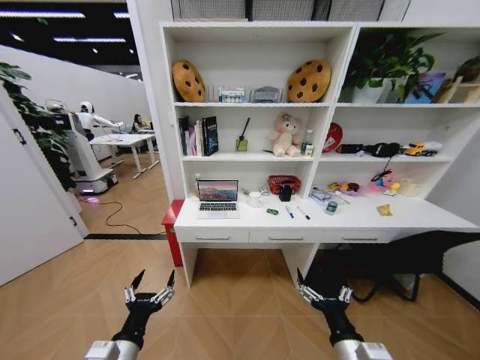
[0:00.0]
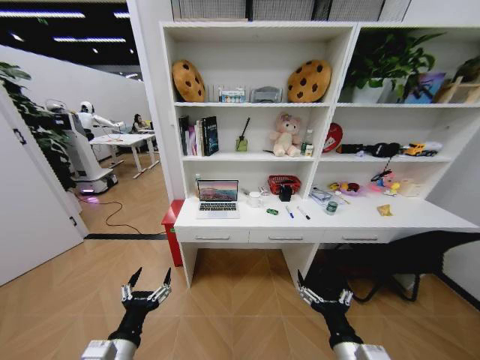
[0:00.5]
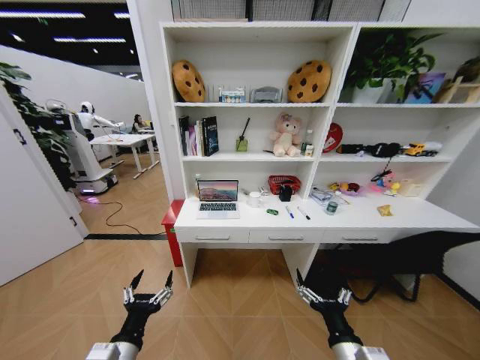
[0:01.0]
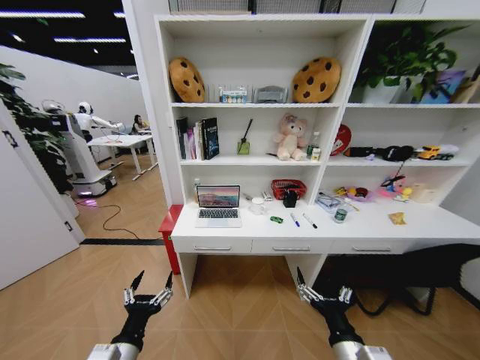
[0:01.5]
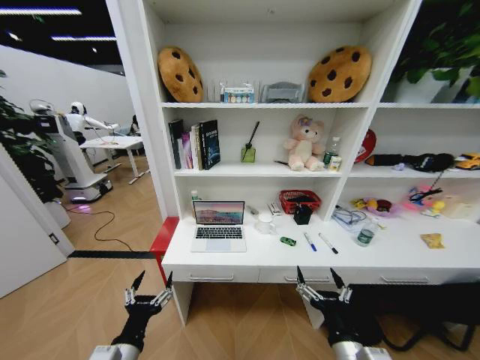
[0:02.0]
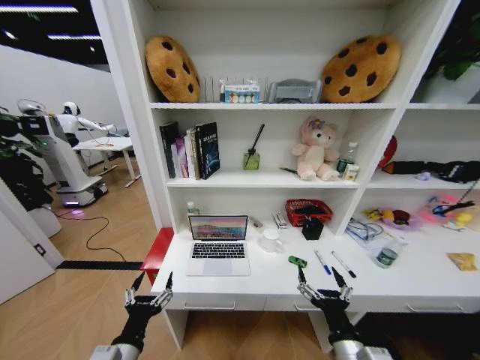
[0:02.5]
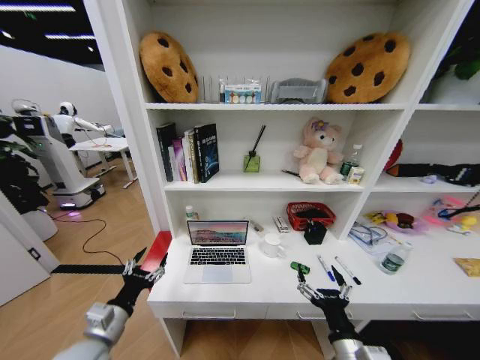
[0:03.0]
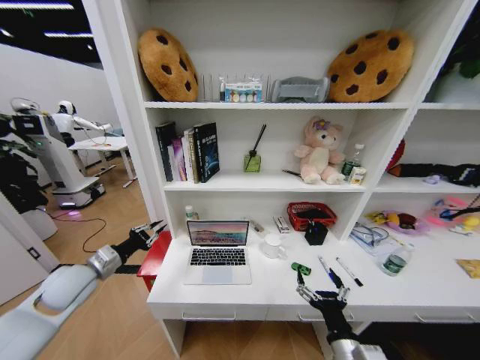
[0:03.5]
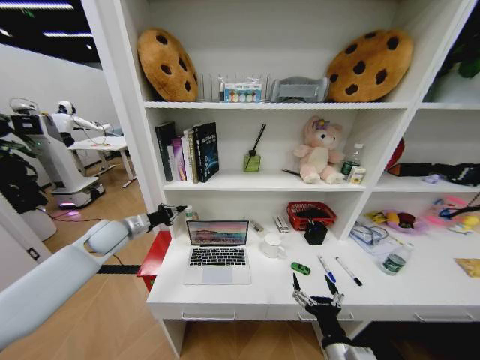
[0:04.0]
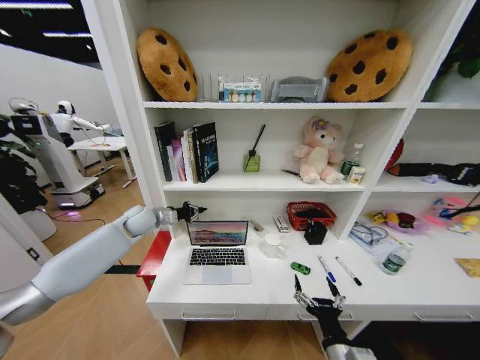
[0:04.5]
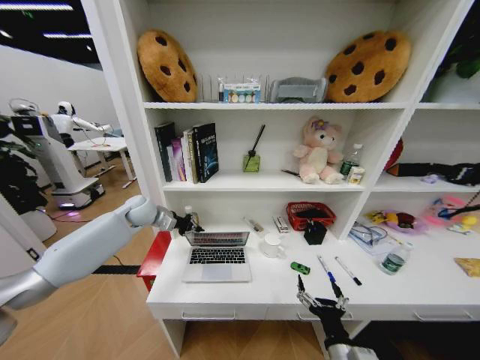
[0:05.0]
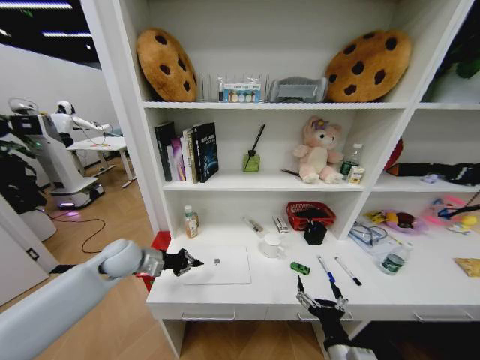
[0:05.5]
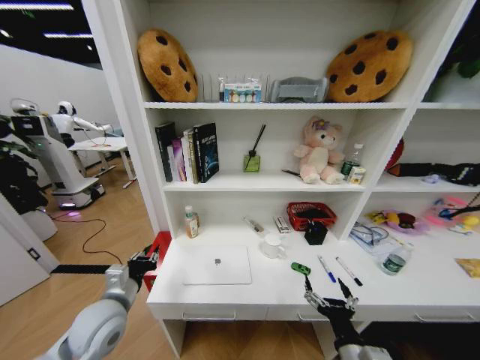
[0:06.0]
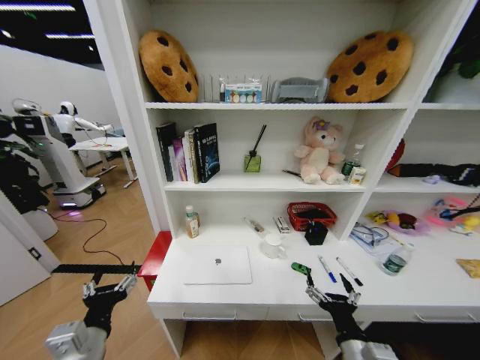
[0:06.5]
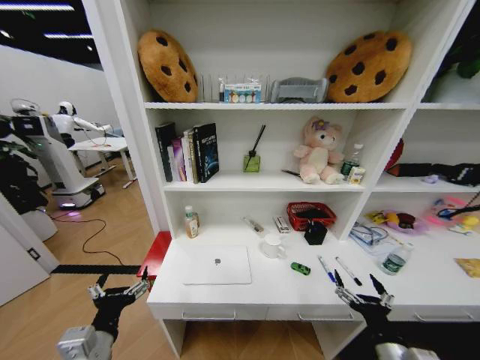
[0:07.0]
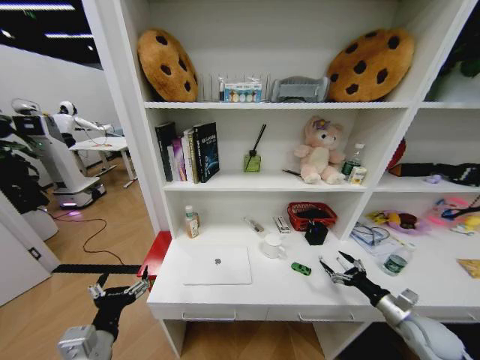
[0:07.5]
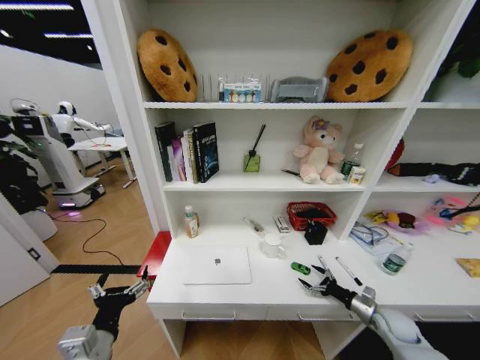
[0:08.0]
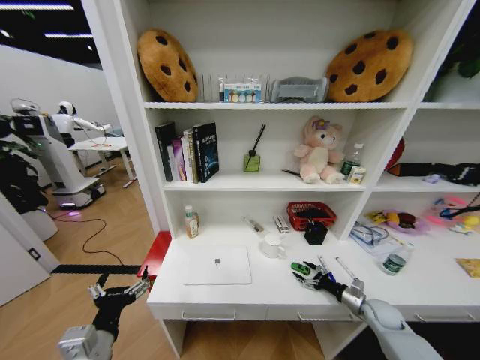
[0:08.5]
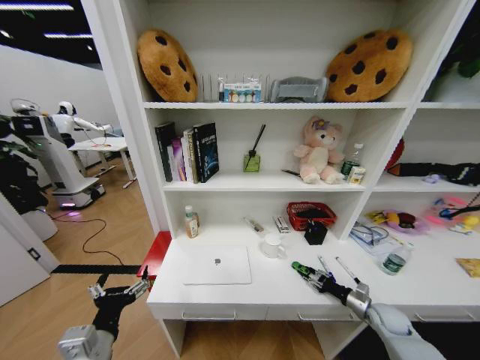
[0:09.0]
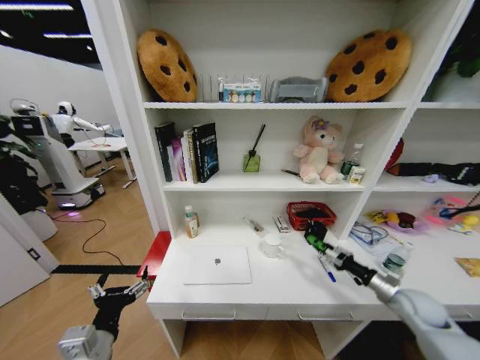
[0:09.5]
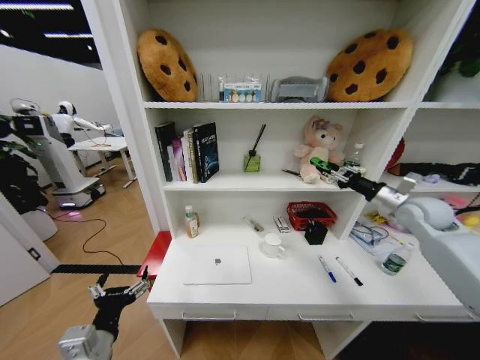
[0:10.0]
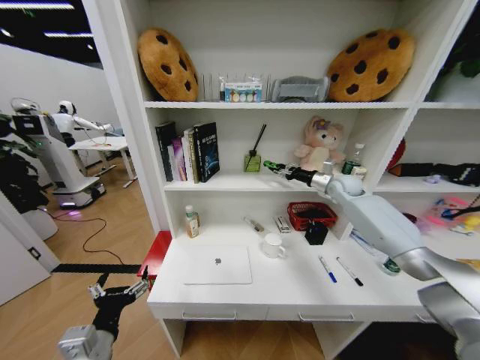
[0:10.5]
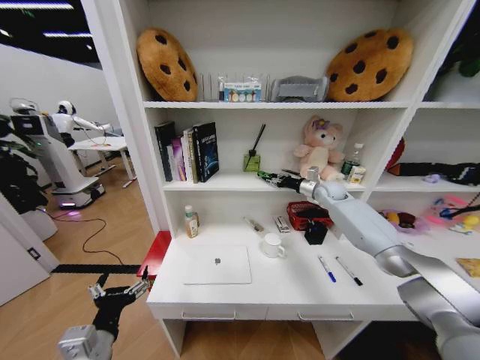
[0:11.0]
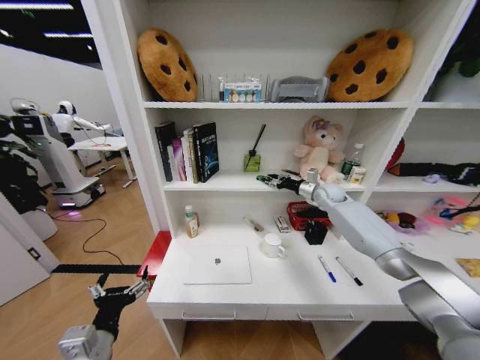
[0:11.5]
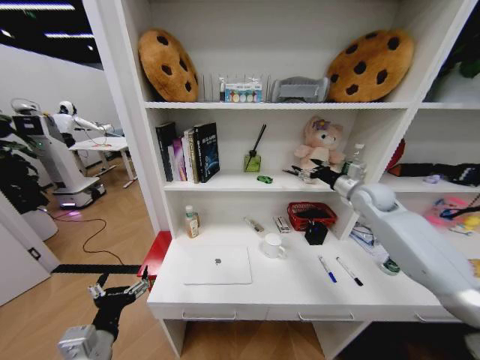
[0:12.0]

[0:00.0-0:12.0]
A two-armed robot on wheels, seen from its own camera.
Task of the whole recording: Organize the objects on the table.
0:02.0 to 0:04.0: The left gripper travels forward by some 35 cm, and closes up.
0:04.0 to 0:06.0: The left gripper shifts about 20 cm backward.
0:06.0 to 0:08.0: The left gripper is displaced backward by about 15 cm, and opens. The right gripper travels to the right, forward and downward by some 30 cm.
0:08.0 to 0:10.0: The right gripper travels upward and forward by roughly 35 cm, and closes its fingers.
0:10.0 to 0:12.0: The right gripper goes approximately 10 cm forward and to the left, and opens.

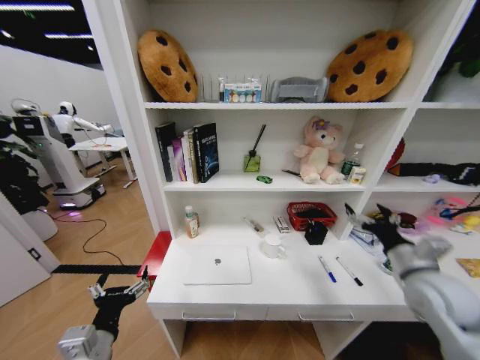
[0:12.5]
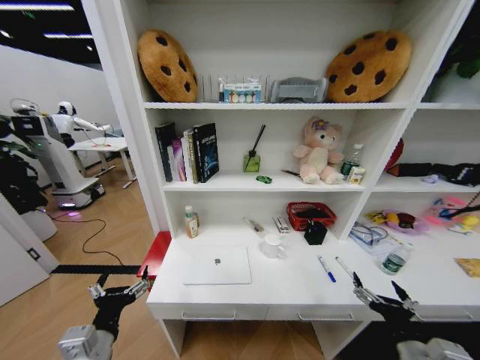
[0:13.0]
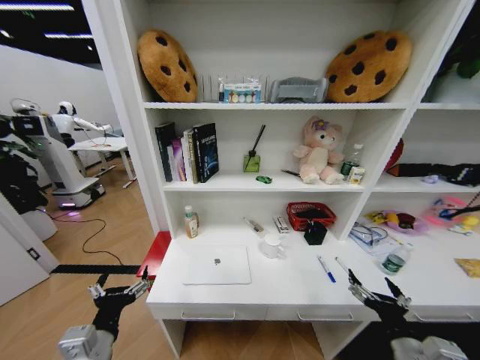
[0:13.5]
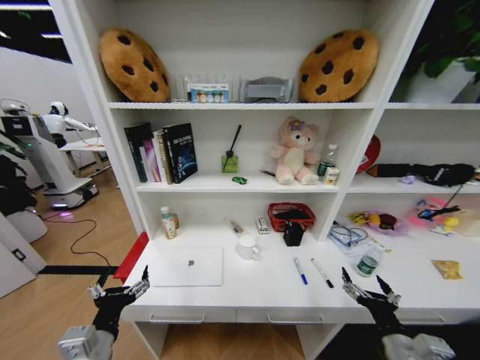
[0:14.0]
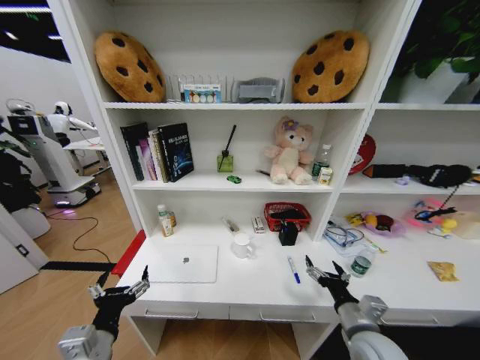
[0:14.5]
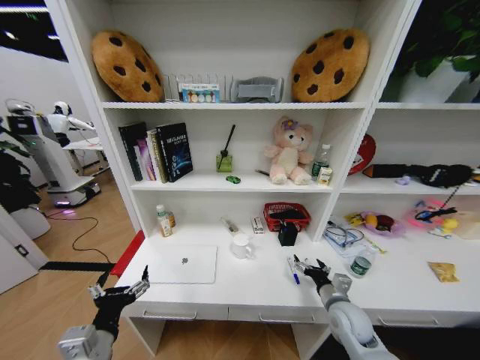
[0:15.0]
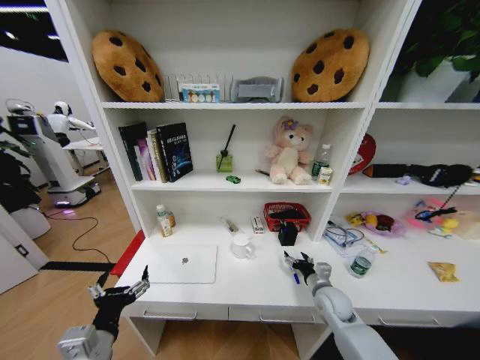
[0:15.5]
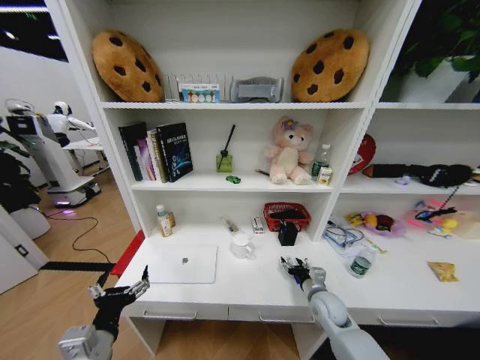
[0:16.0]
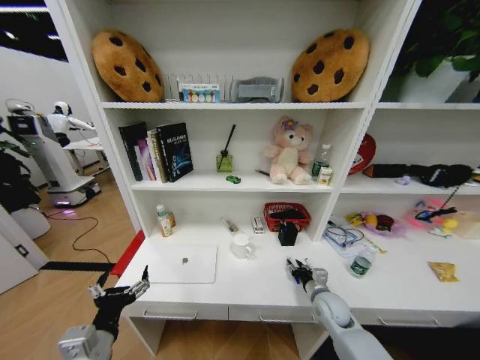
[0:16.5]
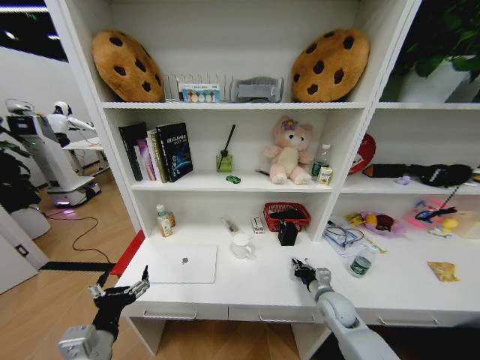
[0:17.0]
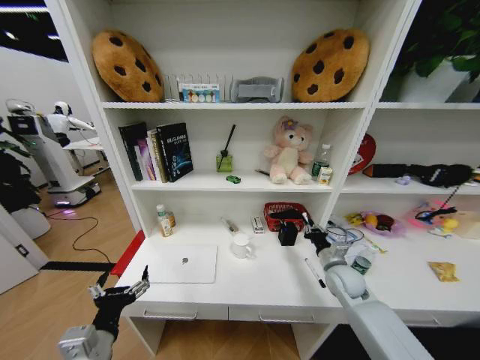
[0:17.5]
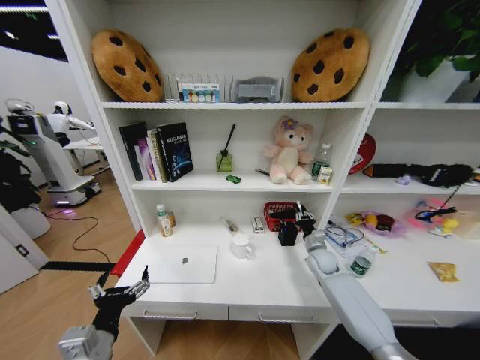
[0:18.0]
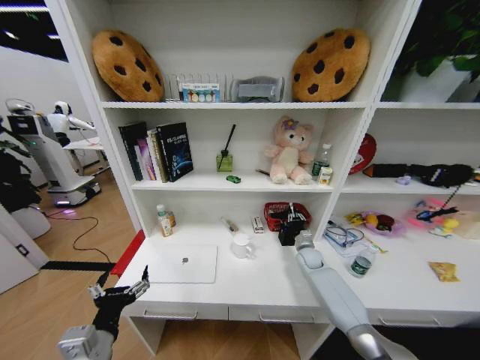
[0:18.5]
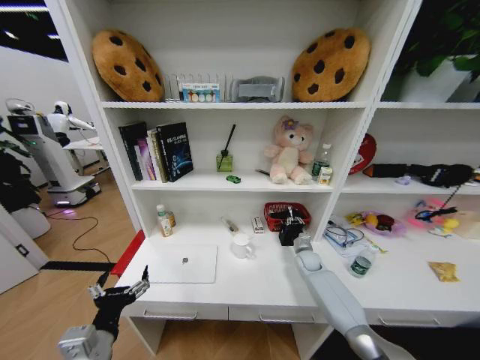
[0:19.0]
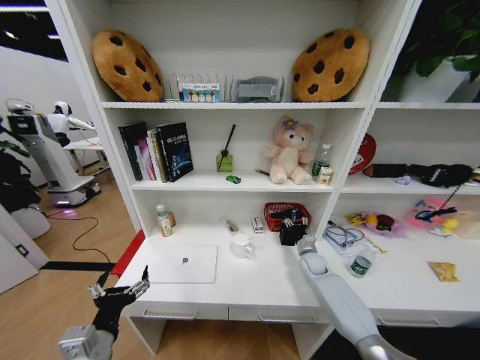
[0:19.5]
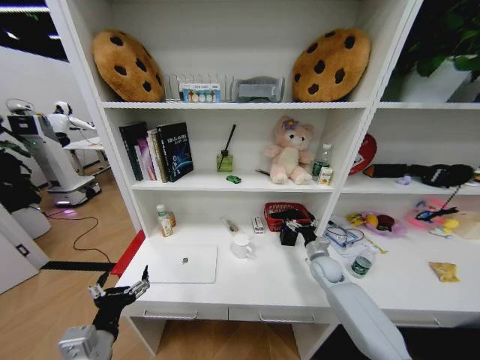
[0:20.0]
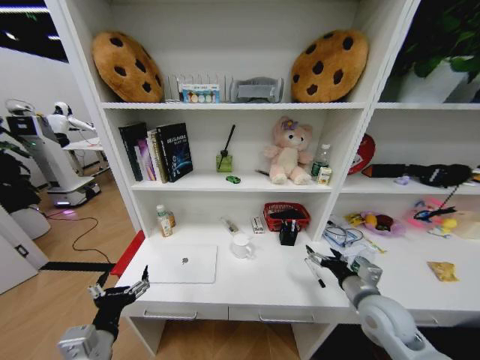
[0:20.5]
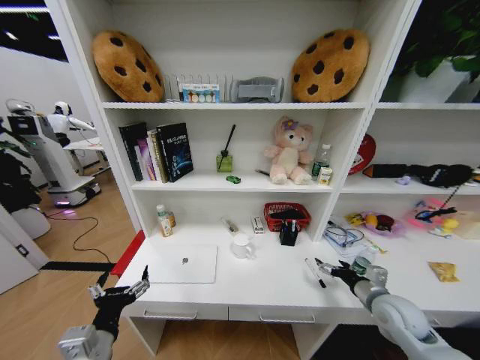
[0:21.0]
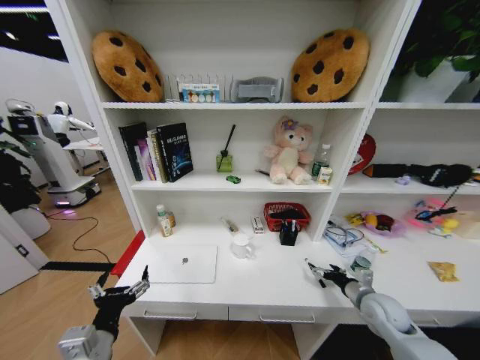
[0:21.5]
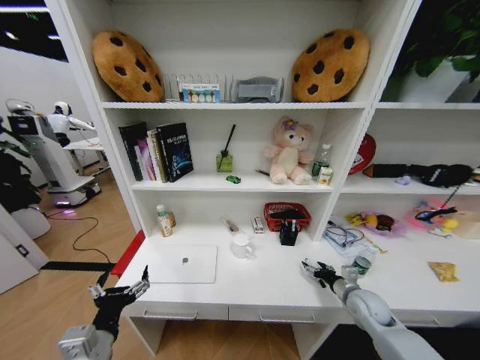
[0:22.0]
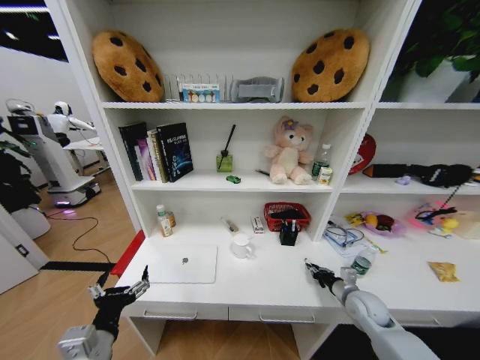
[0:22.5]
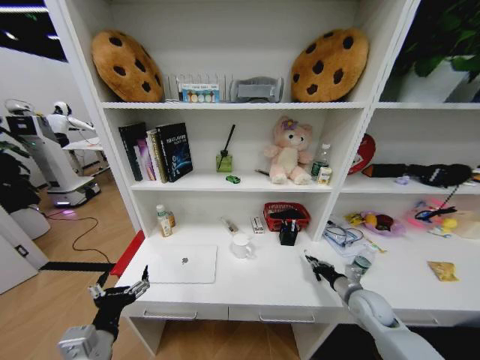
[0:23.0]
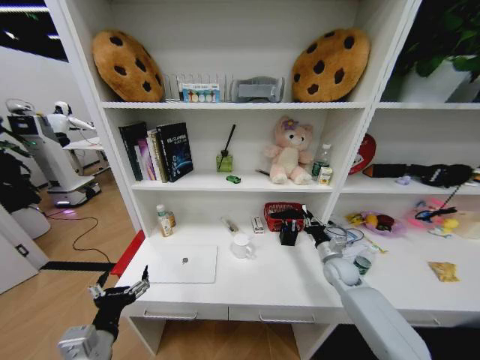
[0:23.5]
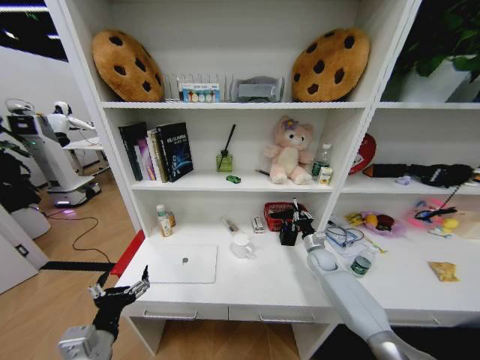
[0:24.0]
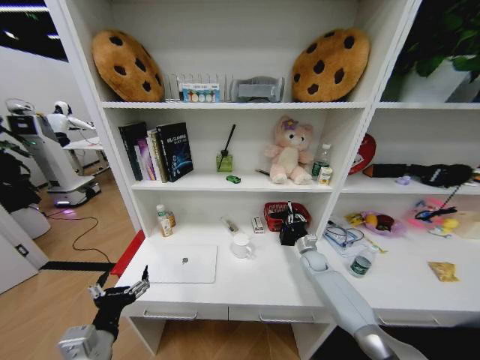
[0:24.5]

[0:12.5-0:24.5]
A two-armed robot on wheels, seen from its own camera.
Task of the whole recording: Organize the objects on the table.
0:12.5 to 0:14.5: The right gripper heads to the left, downward and backward, covering approximately 15 cm.
0:14.5 to 0:16.5: The right gripper moves forward and downward, about 15 cm, and closes.
0:16.5 to 0:18.5: The right gripper travels forward by roughly 20 cm, and closes its fingers.
0:18.5 to 0:20.5: The right gripper goes some 30 cm backward and upward, and opens its fingers.
0:20.5 to 0:22.5: The right gripper moves downward and forward, roughly 10 cm, and closes.
0:22.5 to 0:24.5: The right gripper moves forward, about 20 cm.

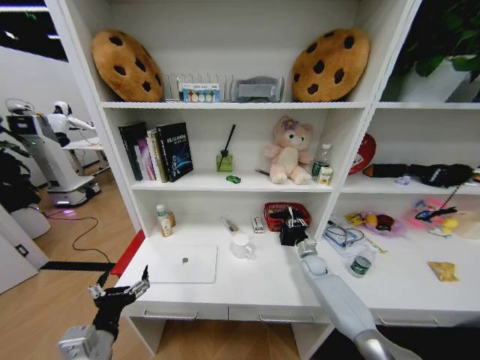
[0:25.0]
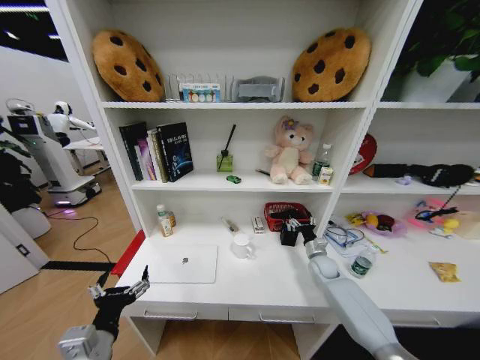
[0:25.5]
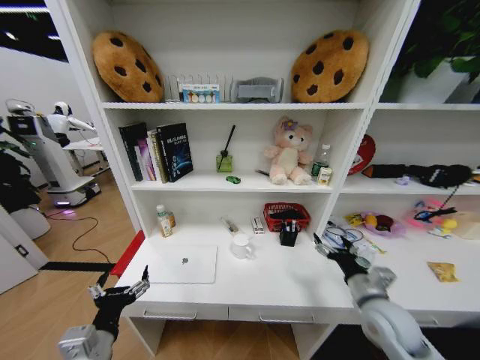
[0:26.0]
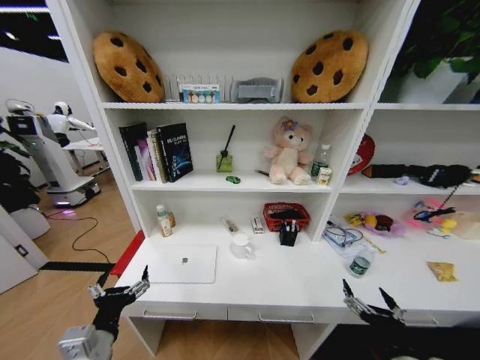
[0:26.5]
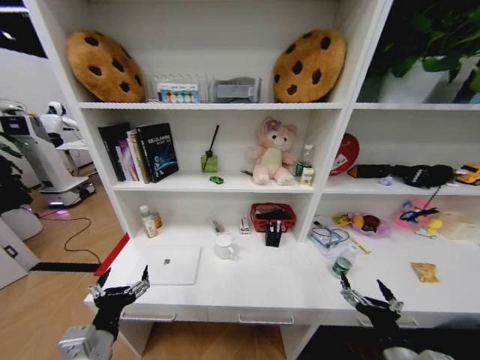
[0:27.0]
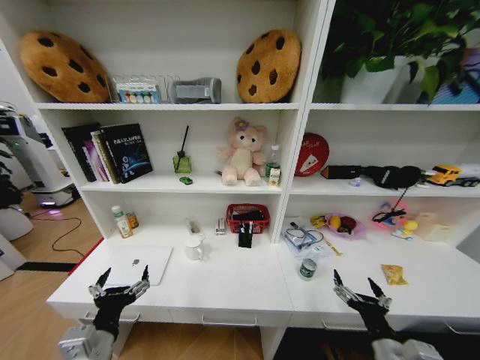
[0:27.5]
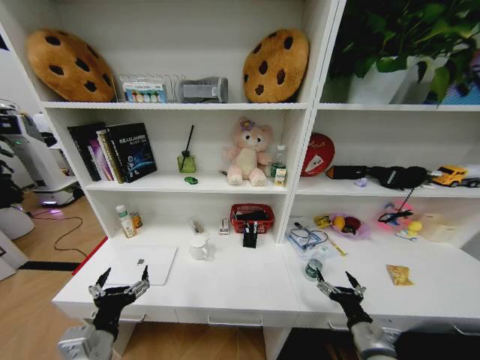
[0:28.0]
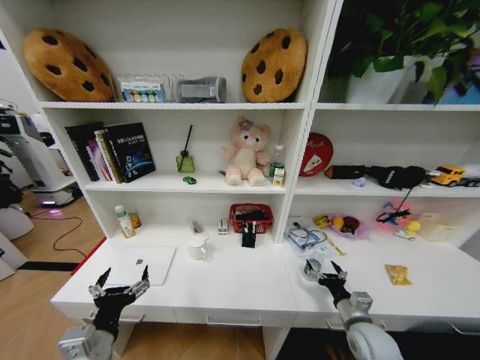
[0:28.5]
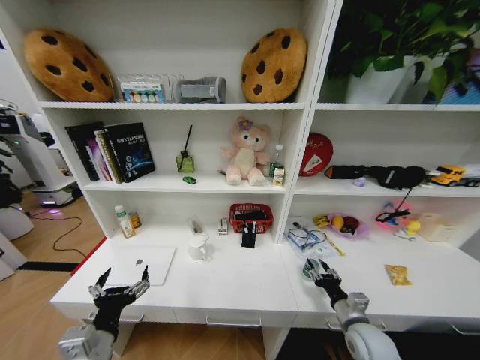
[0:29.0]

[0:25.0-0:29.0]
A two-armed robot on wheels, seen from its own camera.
Task of the whole recording: Organize the objects on the table.
0:25.0 to 0:27.0: The right gripper moves backward, roughly 40 cm, and opens its fingers.
0:27.0 to 0:29.0: The right gripper is displaced forward and downward by about 15 cm, and closes up.
